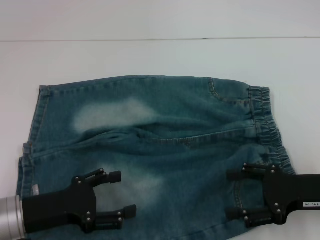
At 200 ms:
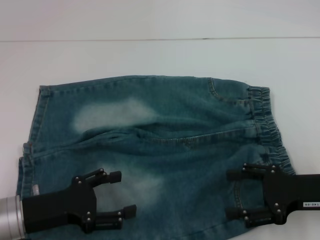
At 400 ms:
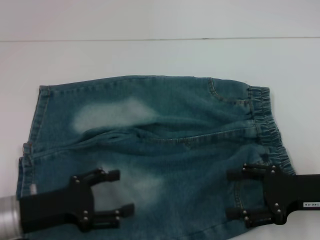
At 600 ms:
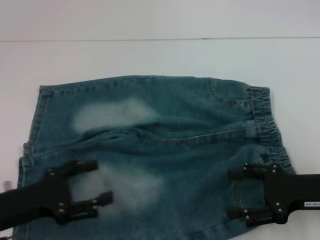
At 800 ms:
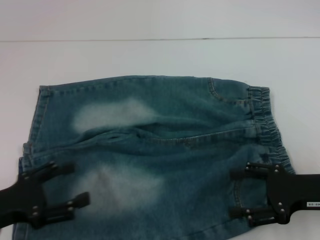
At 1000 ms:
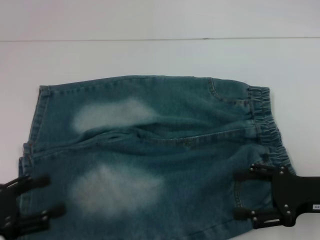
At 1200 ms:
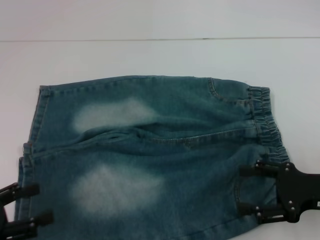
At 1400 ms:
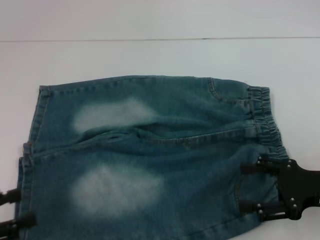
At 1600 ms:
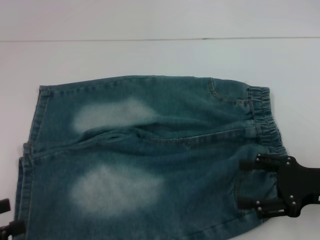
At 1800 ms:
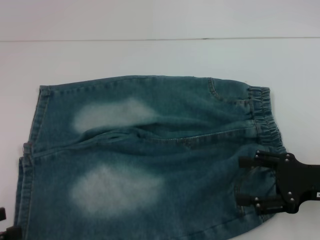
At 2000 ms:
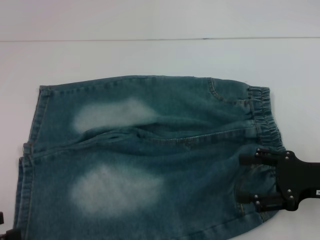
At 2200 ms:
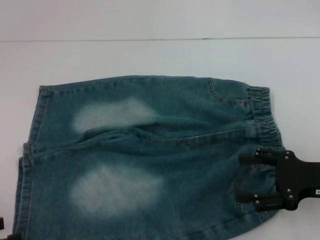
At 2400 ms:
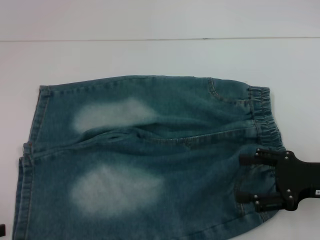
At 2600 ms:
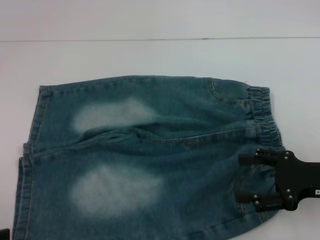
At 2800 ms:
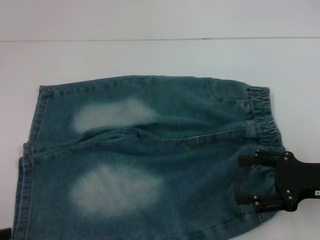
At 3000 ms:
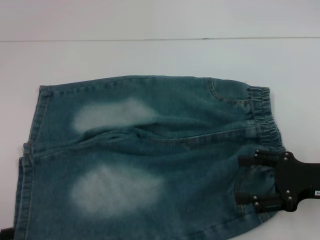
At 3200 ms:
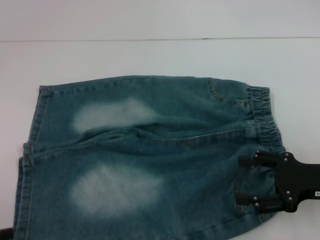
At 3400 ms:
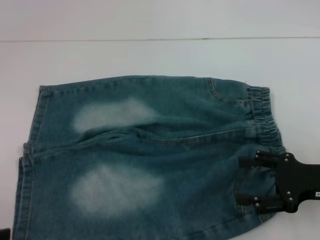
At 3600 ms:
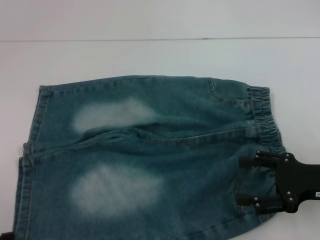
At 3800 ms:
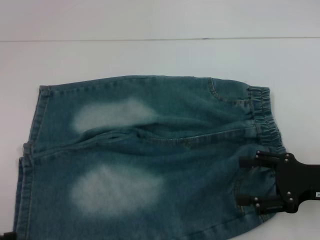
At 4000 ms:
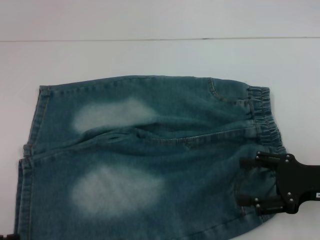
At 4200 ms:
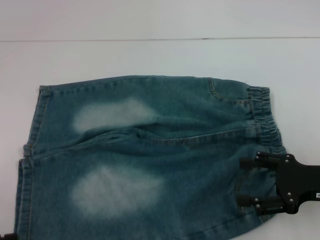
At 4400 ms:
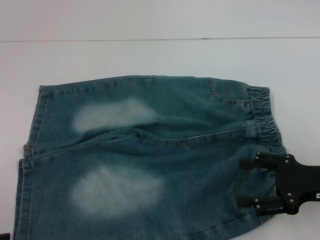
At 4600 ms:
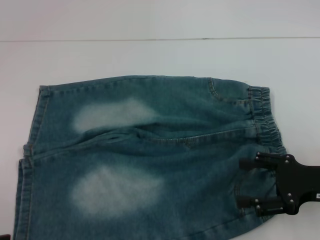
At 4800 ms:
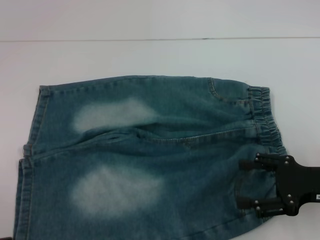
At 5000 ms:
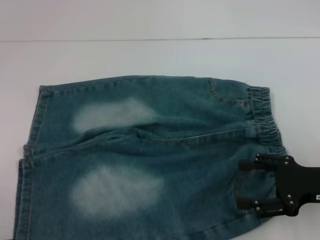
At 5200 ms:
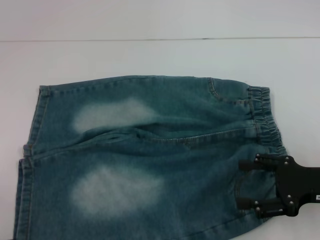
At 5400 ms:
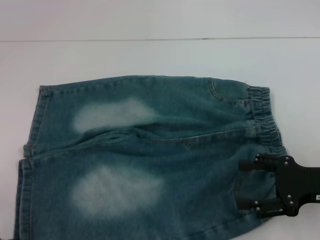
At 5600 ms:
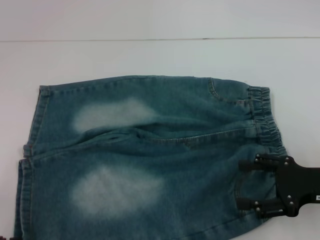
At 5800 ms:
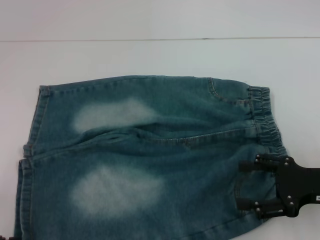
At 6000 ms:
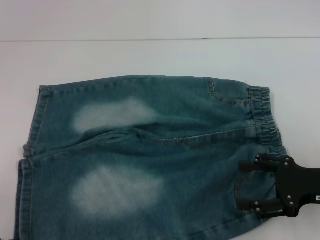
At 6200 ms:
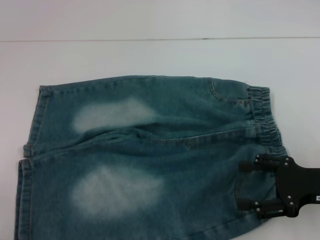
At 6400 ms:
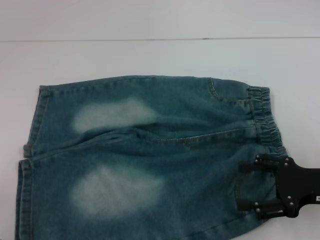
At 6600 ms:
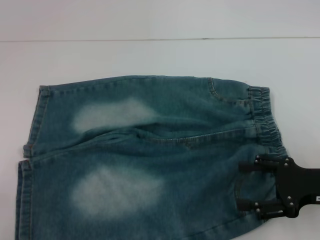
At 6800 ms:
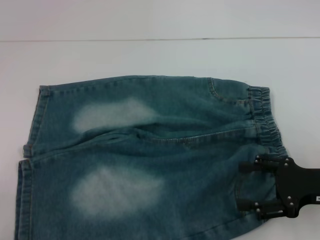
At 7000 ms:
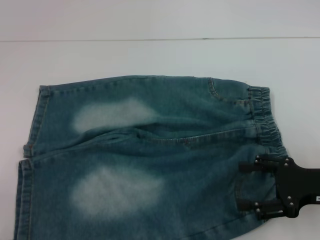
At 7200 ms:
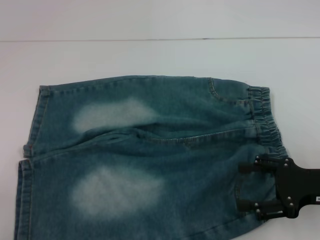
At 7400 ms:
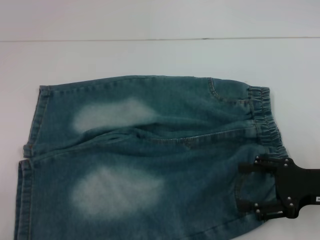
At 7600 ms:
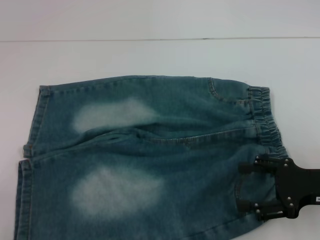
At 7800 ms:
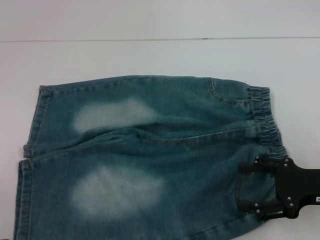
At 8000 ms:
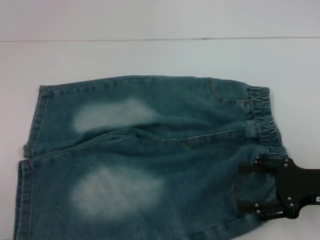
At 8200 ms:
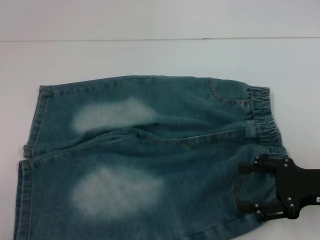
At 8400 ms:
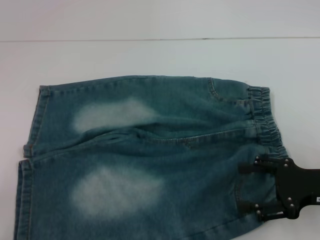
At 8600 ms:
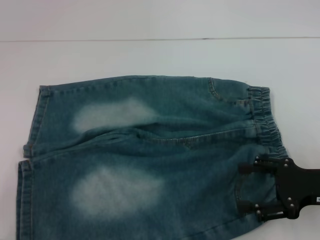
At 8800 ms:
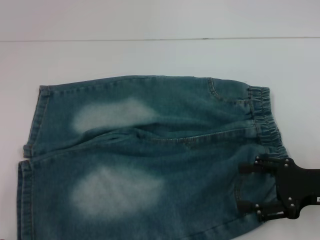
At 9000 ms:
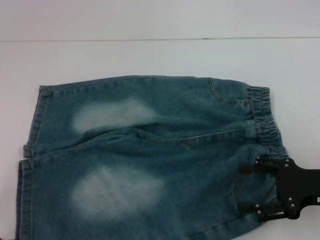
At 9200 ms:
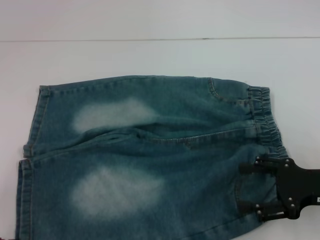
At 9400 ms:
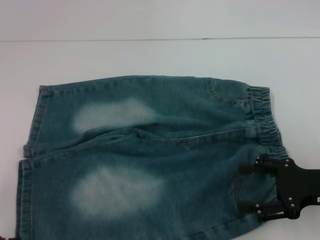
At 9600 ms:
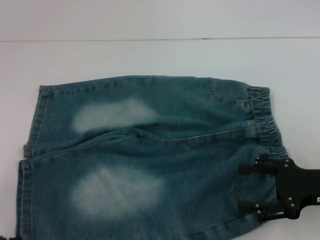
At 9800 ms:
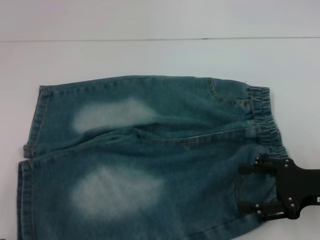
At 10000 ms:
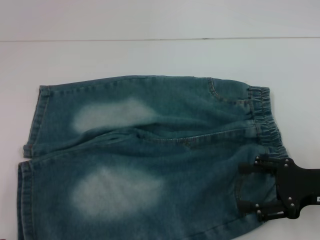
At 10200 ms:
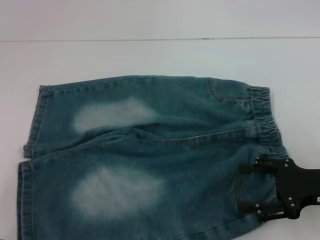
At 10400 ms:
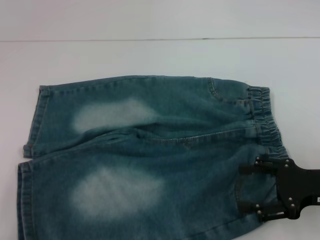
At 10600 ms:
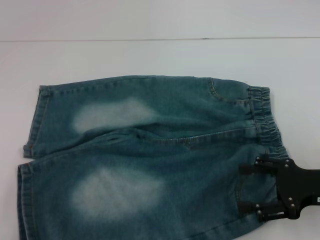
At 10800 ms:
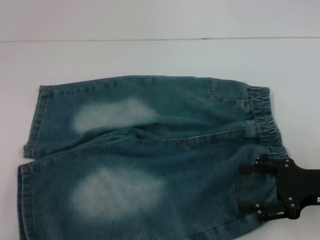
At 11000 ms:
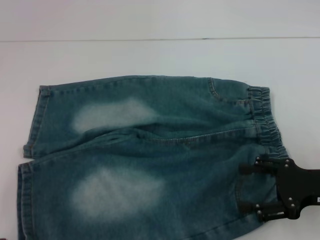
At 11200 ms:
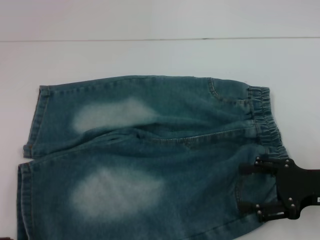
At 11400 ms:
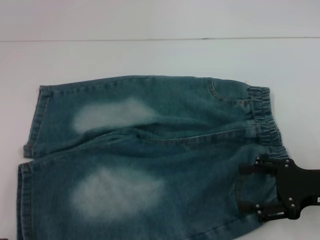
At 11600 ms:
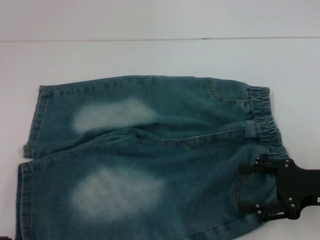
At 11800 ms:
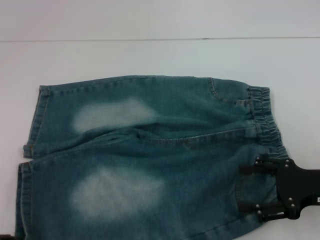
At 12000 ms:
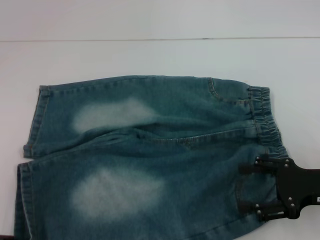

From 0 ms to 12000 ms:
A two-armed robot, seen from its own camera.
From 0 ms to 1600 ms: The left gripper travels to the left, backward and upward by approximately 15 cm.
From 1600 ms to 3000 ms: The grippers stay close to where they were, moving slightly.
From 3000 ms to 4400 ms: Both grippers stay put.
From 4400 ms to 6000 ms: The two grippers keep their place.
From 6000 ms to 7600 ms: The two grippers keep their place.
From 7600 ms to 10400 ms: Both grippers stay about where they are.

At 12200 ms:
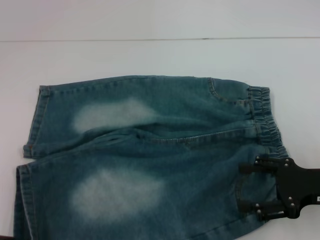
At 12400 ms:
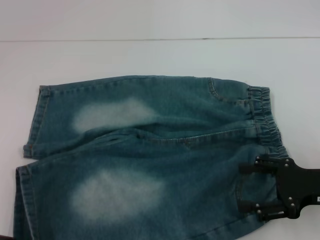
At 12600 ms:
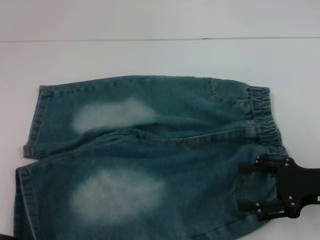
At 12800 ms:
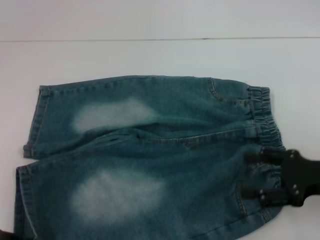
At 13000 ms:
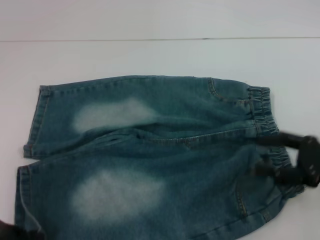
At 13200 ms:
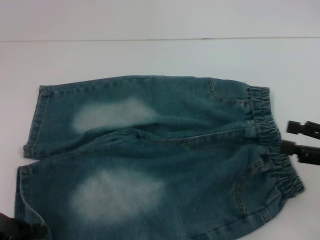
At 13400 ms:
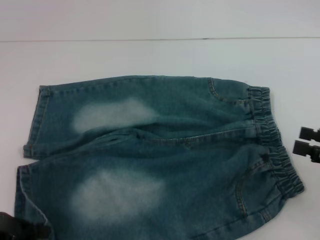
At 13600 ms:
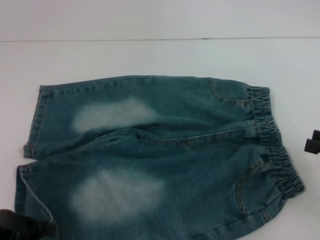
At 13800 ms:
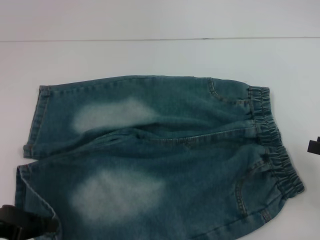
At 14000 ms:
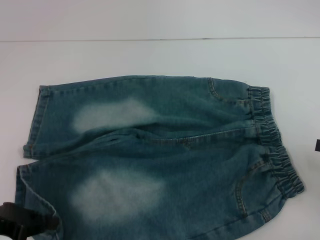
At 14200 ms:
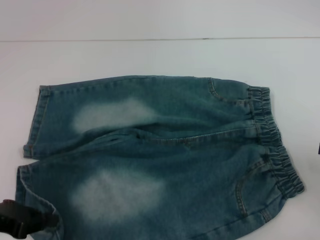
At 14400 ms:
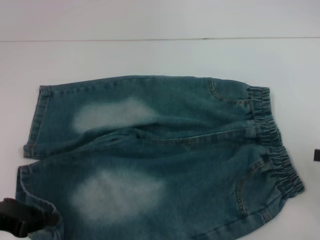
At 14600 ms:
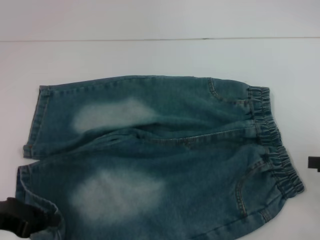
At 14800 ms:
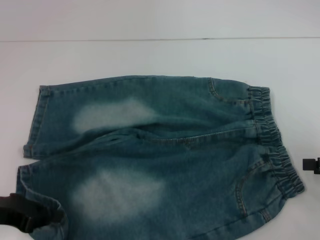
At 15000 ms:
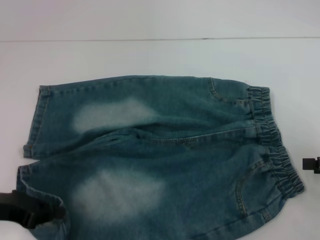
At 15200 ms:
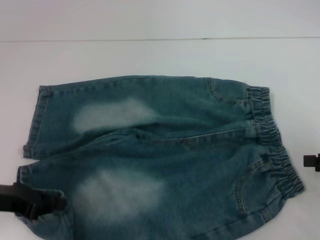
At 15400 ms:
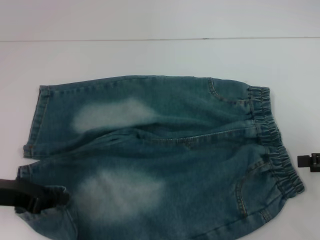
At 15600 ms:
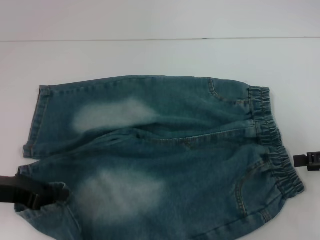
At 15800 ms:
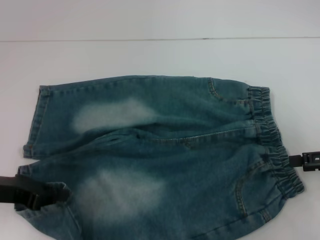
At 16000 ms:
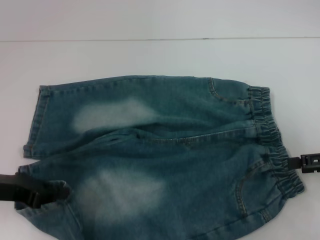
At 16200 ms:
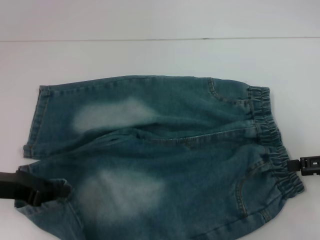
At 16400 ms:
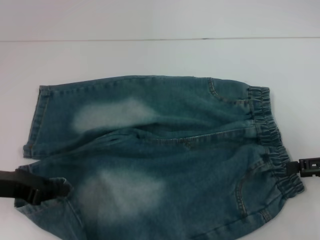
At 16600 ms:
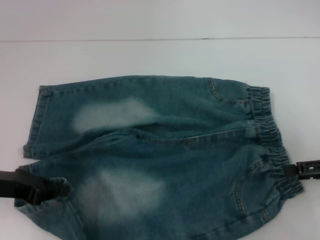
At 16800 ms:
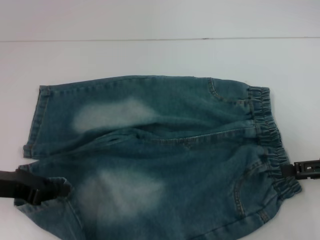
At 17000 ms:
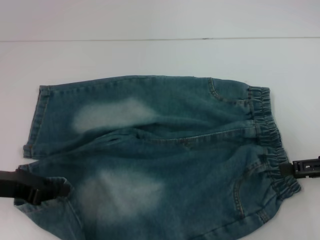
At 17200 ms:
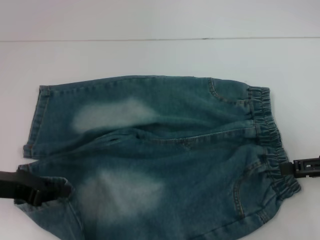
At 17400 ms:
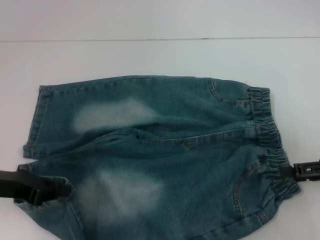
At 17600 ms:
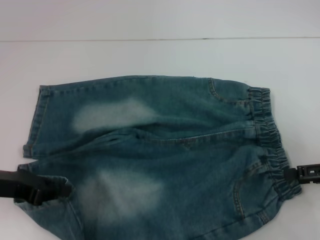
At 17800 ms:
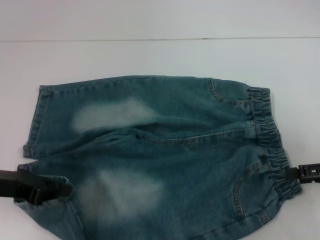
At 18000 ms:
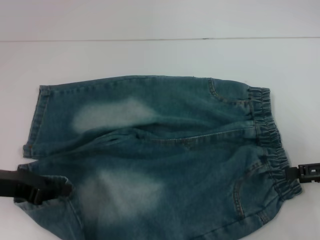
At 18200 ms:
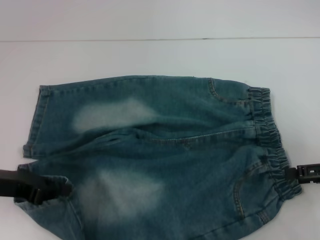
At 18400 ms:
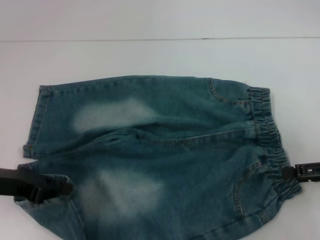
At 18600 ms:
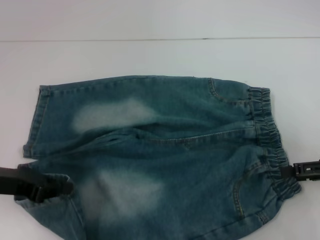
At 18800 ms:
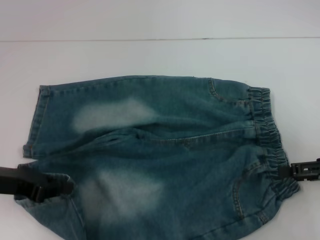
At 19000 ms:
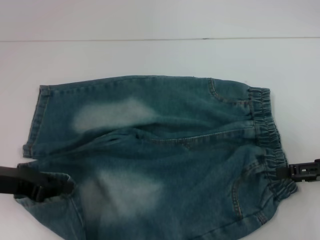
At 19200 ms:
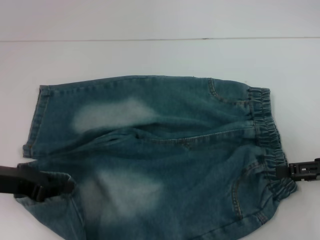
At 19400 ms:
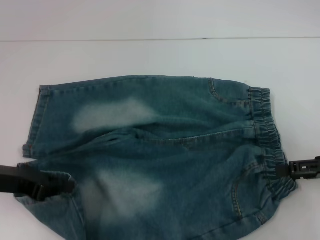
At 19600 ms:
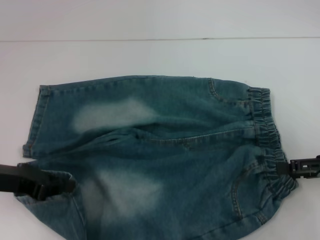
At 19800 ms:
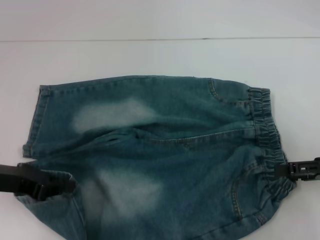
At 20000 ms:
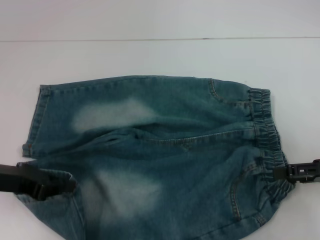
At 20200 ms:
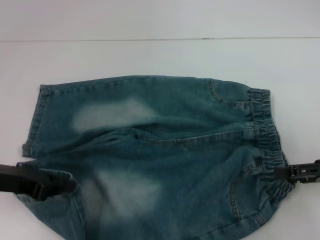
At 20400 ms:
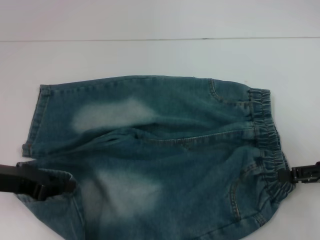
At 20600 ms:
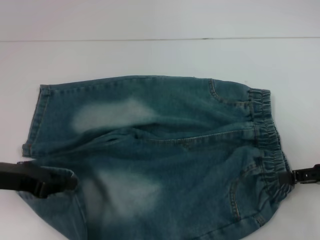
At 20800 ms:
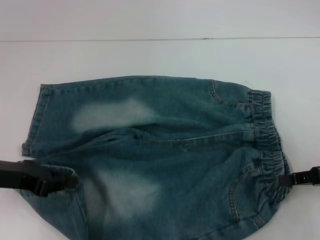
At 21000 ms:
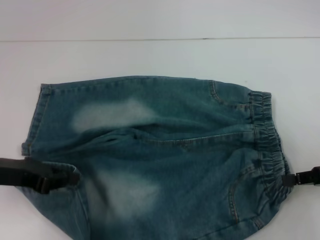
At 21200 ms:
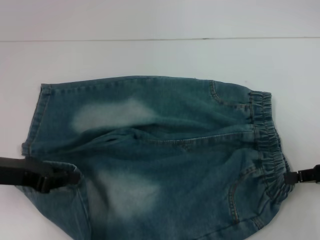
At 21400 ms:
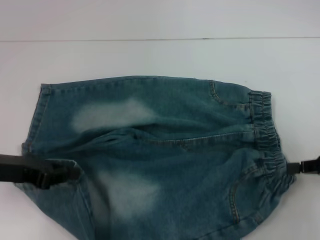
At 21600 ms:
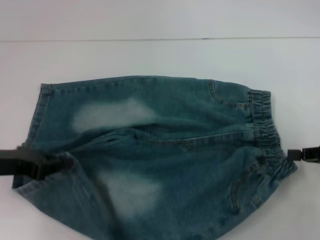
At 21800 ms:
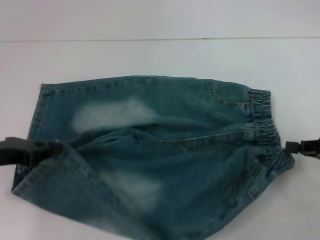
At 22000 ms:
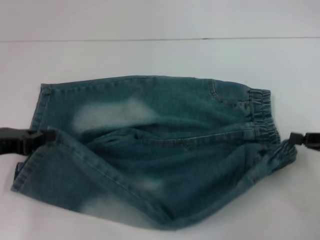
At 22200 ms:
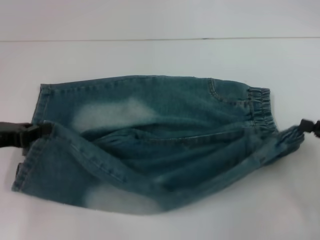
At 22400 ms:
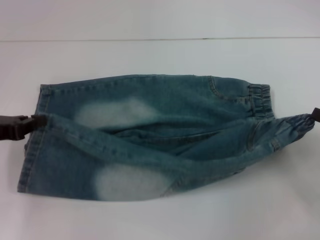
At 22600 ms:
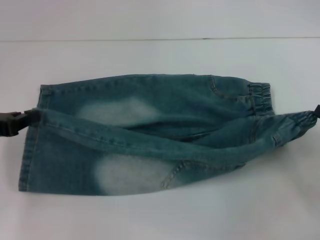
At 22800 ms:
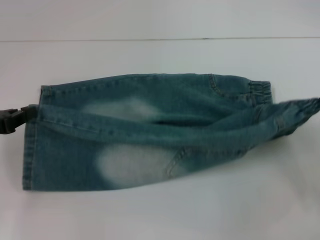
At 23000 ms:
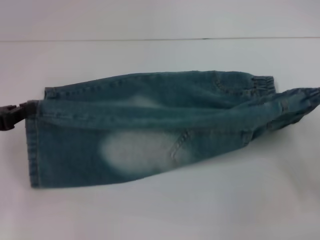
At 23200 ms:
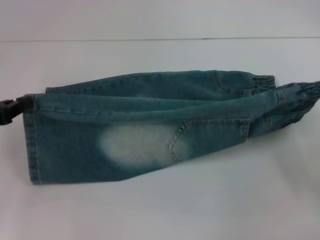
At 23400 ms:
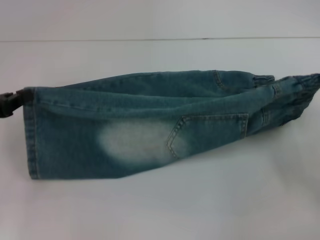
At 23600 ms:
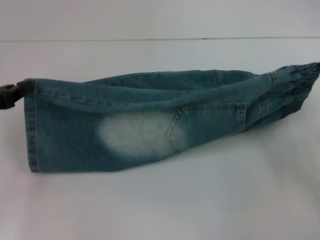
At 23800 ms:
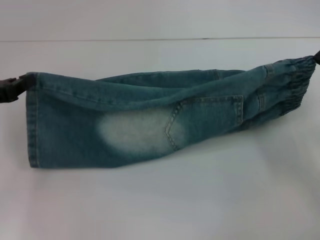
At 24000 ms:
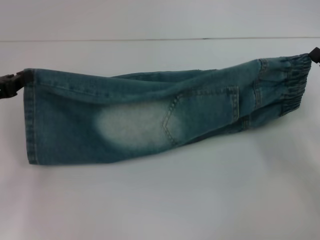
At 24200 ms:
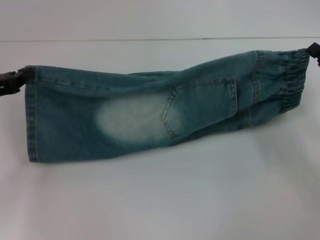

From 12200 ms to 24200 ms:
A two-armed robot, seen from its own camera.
Step, from 13400 ms to 21400 ms: Hold the lower right waistband with your right hand.
From 12200 ms to 13800 ms: The right gripper is displaced to the right by approximately 10 cm; the left gripper closes.
From 15200 ms to 16600 ms: There are only small adjustments of the grippers.
From 16600 ms to 18200 ms: Both grippers stay put.
From 18200 ms to 19800 ms: The grippers move only a little.
From 19800 ms to 21200 ms: The right gripper closes.
From 22600 ms to 24200 ms: The right gripper heads forward, covering some 5 cm.
